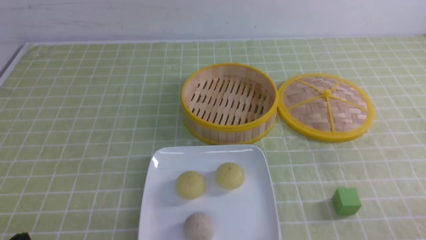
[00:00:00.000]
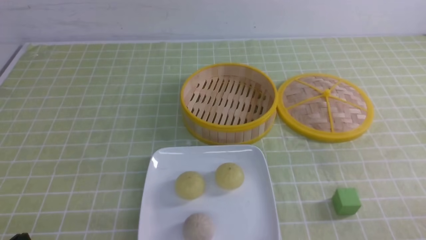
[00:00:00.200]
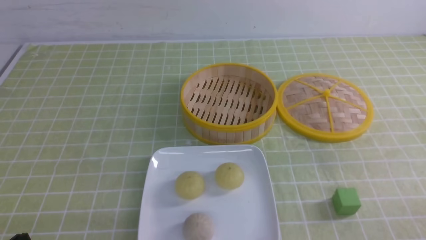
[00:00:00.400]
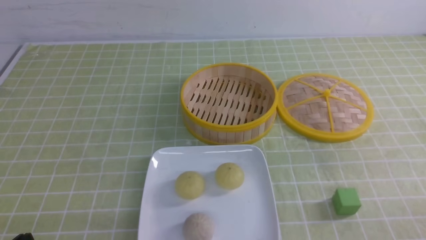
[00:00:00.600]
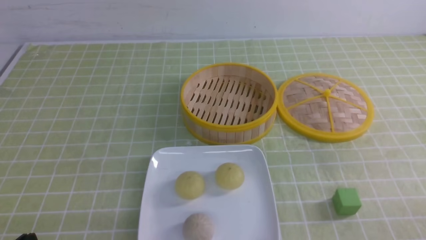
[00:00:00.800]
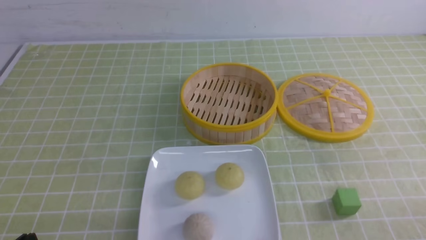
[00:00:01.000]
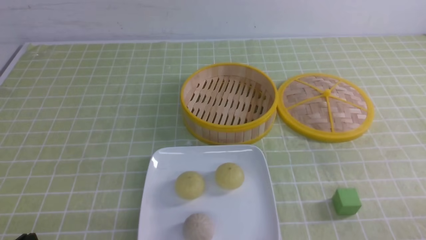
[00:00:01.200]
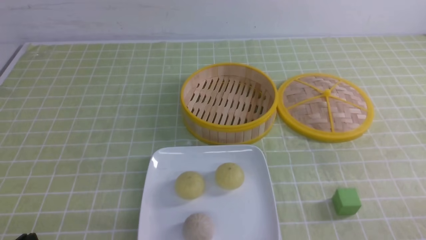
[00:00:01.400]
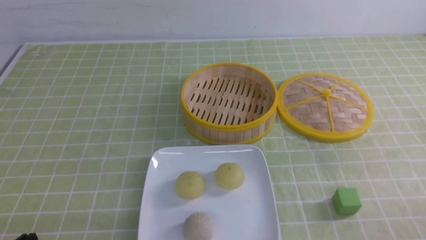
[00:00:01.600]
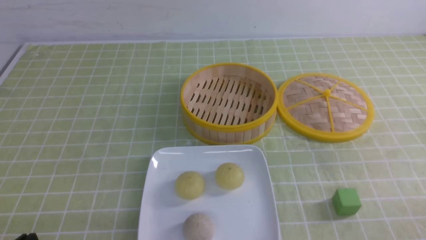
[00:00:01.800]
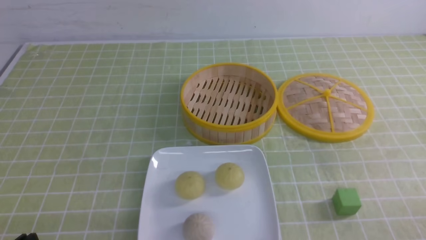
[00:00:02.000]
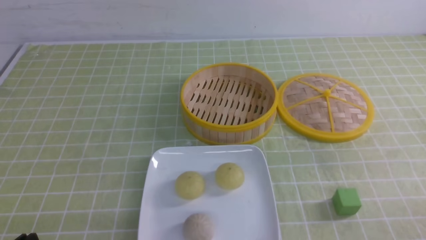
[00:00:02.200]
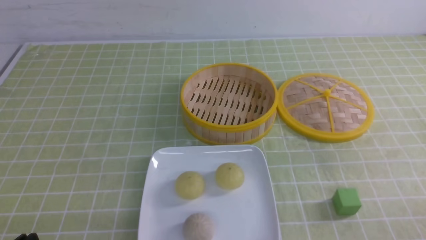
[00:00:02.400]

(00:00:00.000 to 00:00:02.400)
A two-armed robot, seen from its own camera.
00:00:00.000 - 00:00:02.400: Both grippers stay put.
